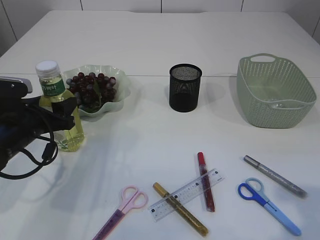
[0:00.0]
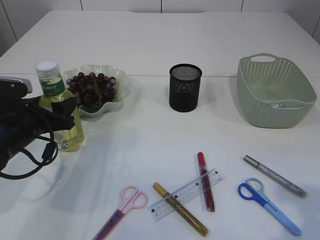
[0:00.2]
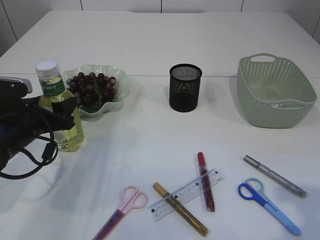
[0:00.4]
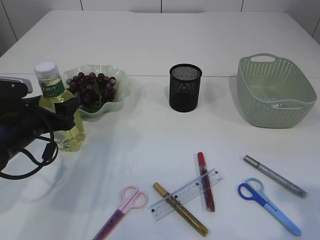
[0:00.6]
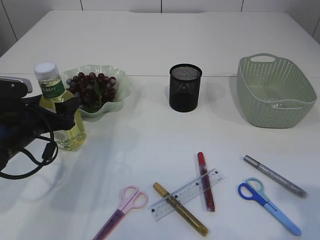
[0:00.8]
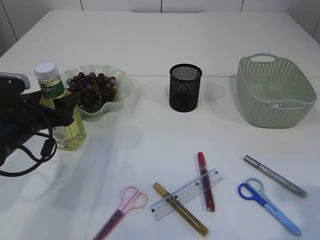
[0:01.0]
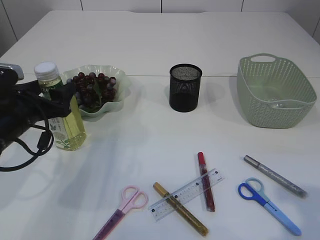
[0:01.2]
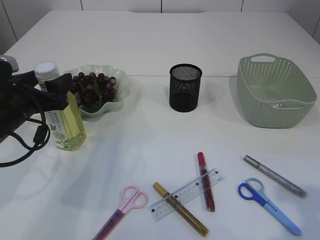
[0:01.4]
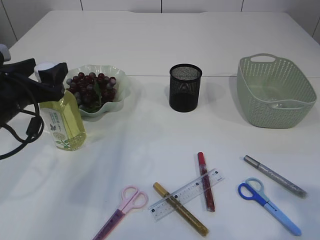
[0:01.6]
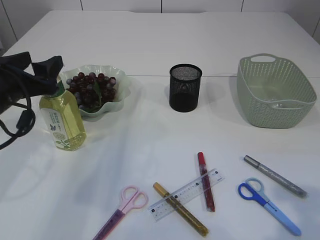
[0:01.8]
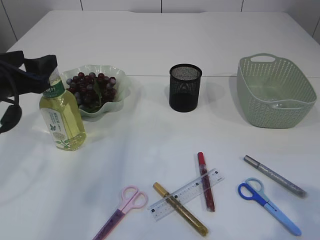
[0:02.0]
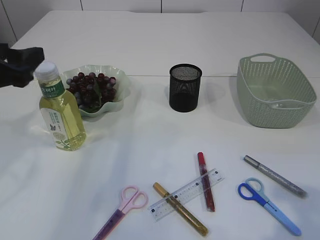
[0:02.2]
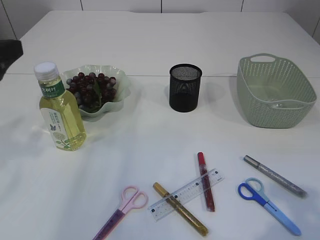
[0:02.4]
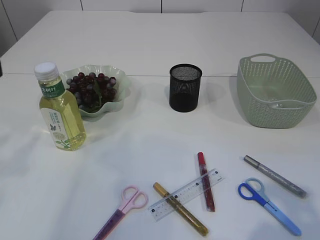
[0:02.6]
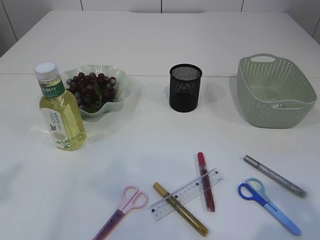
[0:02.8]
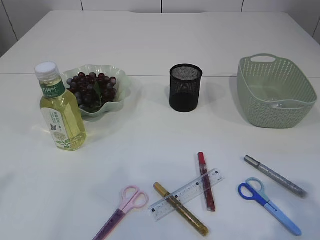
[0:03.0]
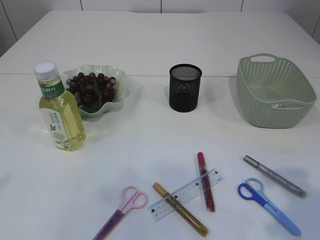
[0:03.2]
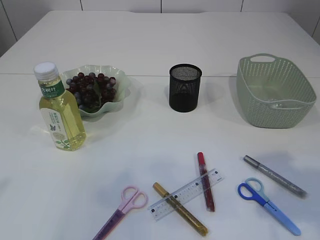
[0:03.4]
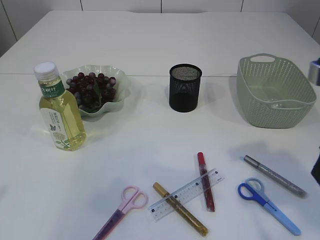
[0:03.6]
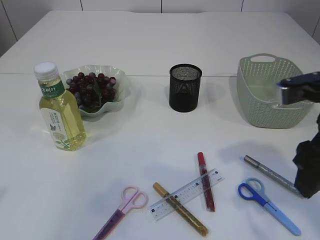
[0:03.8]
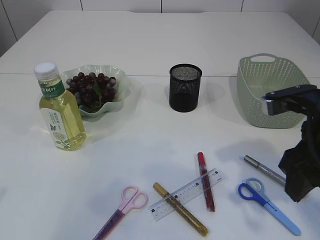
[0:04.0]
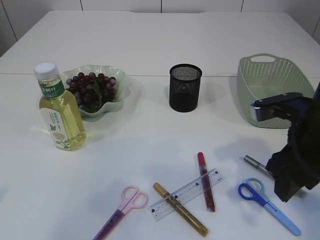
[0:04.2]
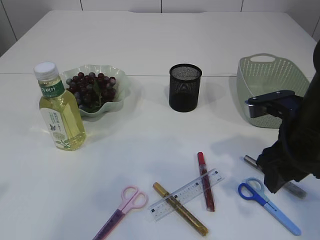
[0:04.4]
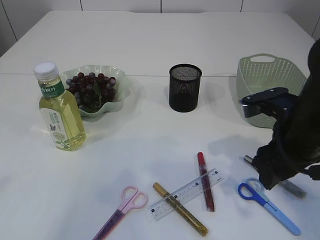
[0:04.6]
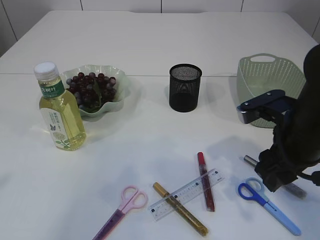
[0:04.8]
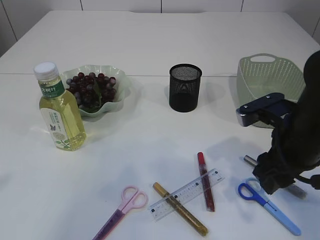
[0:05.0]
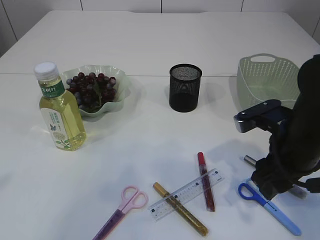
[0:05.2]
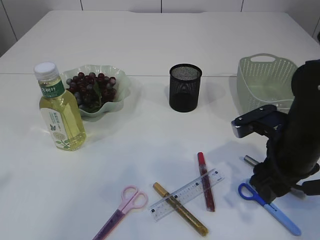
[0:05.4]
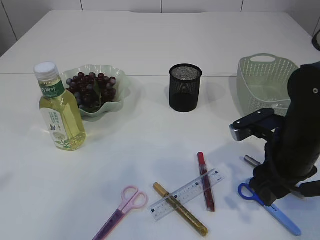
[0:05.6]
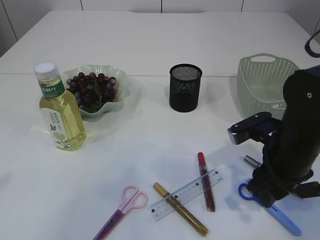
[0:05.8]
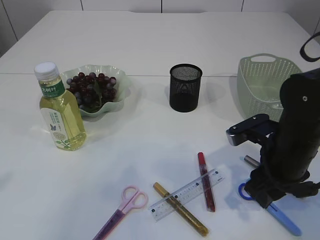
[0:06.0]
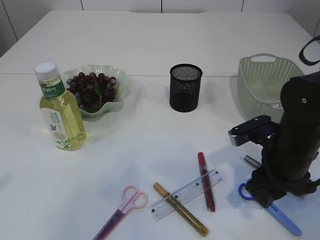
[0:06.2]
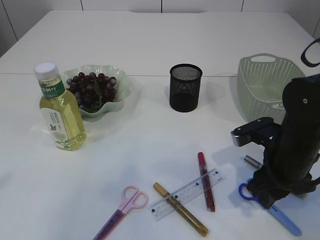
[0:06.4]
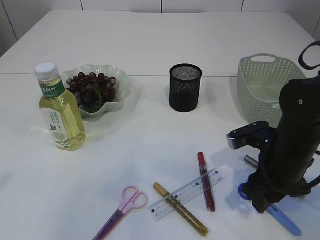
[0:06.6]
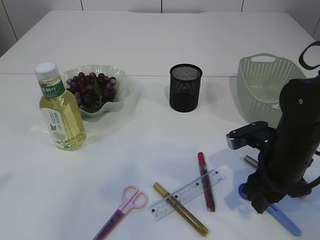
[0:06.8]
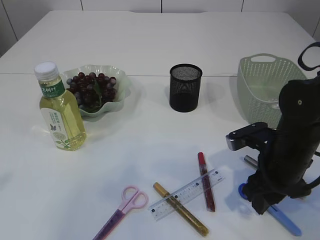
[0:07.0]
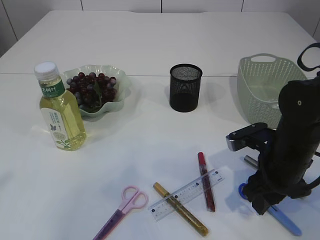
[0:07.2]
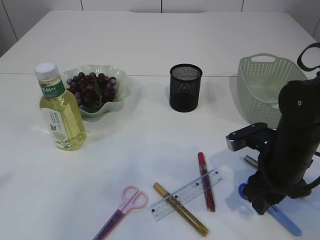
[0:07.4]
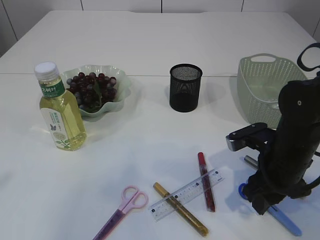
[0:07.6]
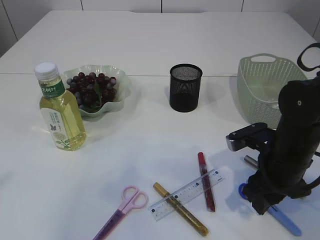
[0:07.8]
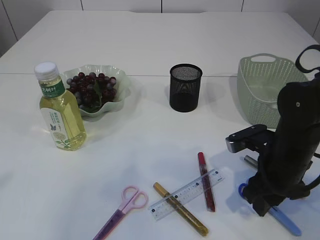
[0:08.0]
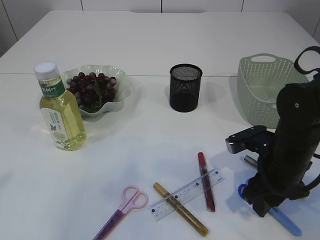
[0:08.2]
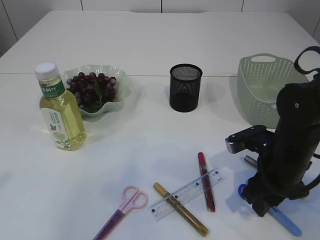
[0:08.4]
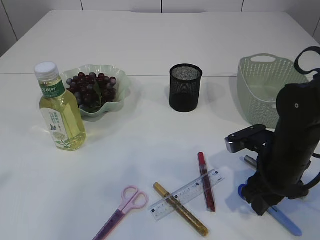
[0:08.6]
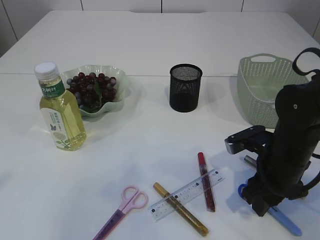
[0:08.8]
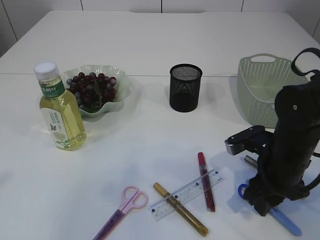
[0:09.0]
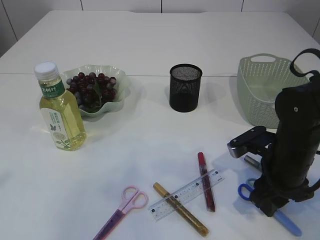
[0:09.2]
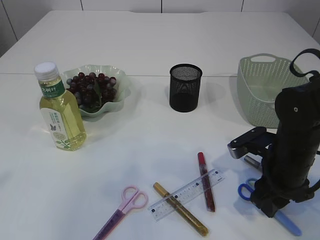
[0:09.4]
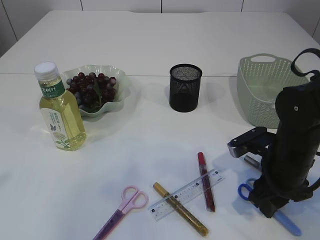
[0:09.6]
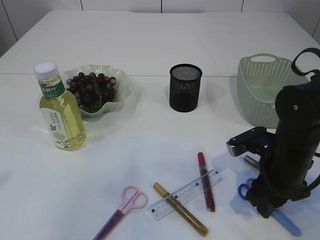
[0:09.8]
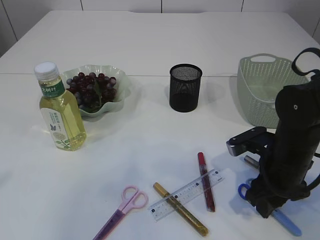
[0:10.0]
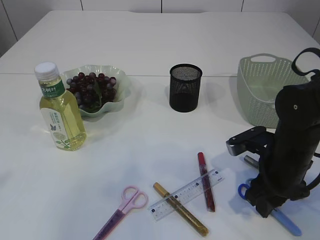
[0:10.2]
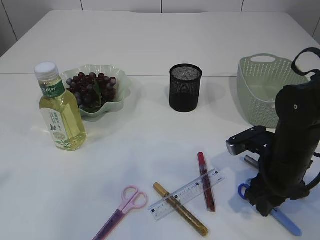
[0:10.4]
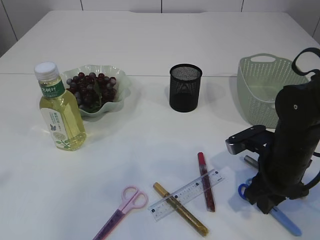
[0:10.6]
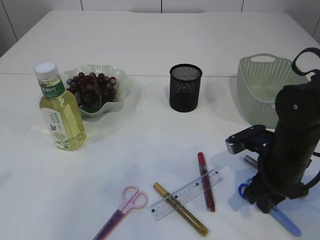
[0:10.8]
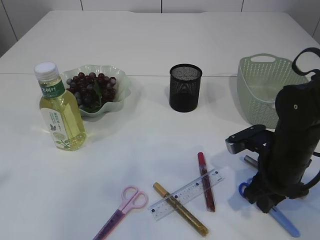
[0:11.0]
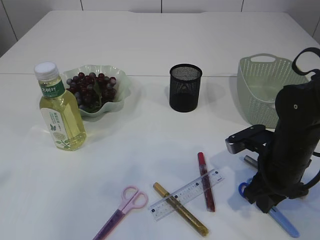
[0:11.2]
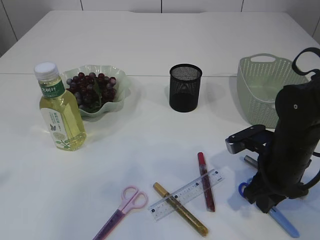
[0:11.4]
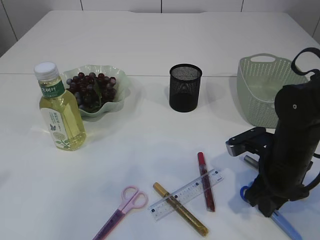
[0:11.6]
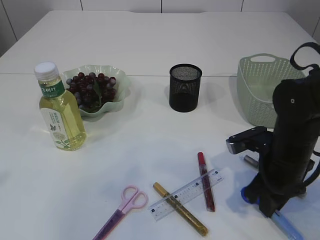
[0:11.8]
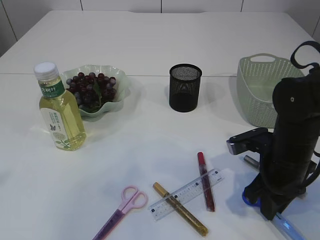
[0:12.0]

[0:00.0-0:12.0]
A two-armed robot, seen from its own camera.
Step, 0:00.0 to 0:02.2: Place the bottle.
0:00.0 to 0:01.6: The left gripper shifts roughly 5 cm upward.
0:01.6 to 0:03.0: The left gripper goes approximately 25 cm backward and upward.
0:03.0 to 0:04.4: The right gripper shifts about 15 cm forward and downward.
0:04.4 to 0:06.0: The right gripper heads downward, covering roughly 5 cm.
0:06.0 to 0:07.6: The grippers move only a little.
0:07.6 to 0:09.0: Neither gripper changes place.
0:09.0 to 0:10.4: Both grippers stay about where they are.
0:10.4 to 0:12.0: The right gripper closes its fingers.

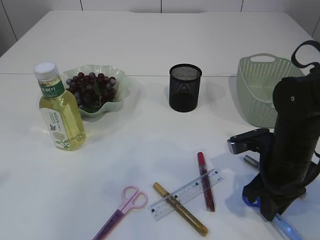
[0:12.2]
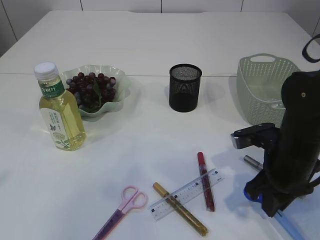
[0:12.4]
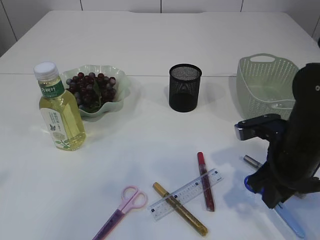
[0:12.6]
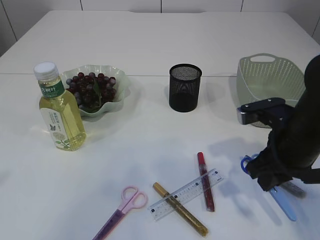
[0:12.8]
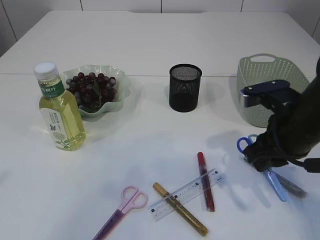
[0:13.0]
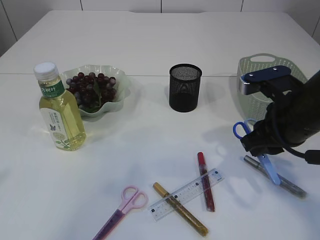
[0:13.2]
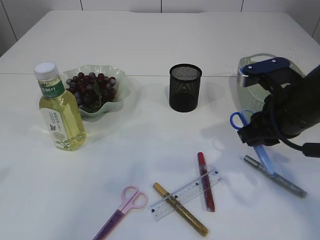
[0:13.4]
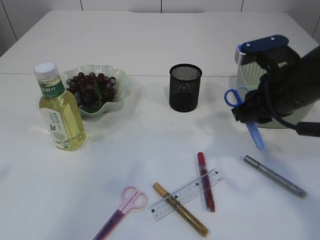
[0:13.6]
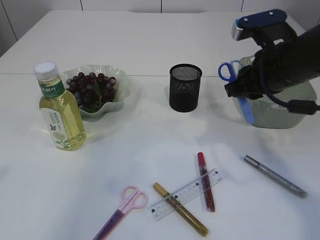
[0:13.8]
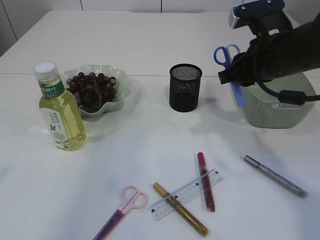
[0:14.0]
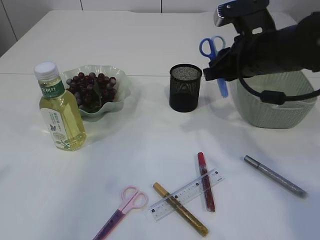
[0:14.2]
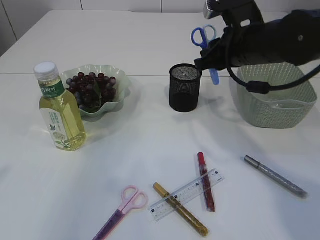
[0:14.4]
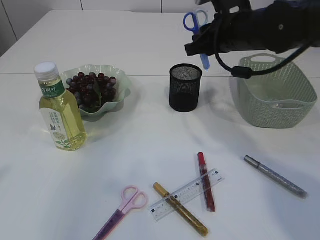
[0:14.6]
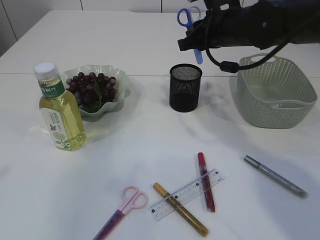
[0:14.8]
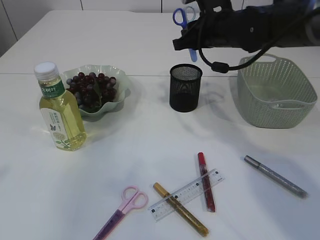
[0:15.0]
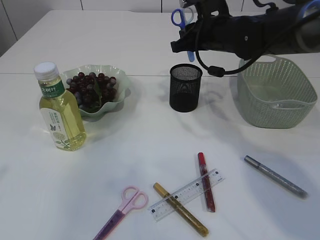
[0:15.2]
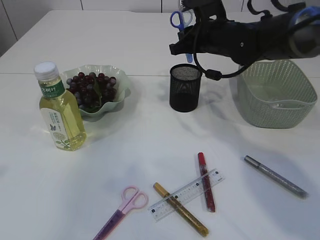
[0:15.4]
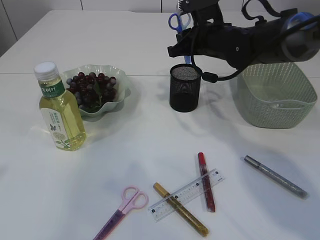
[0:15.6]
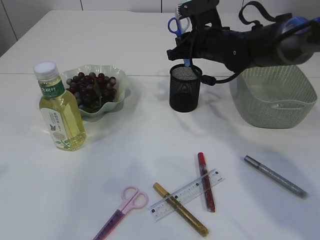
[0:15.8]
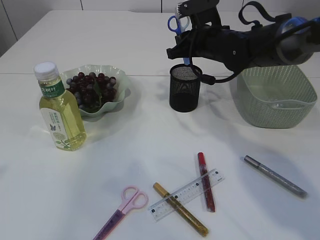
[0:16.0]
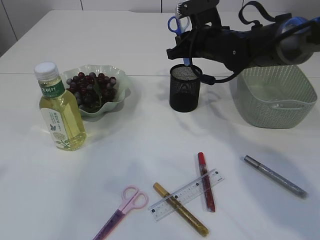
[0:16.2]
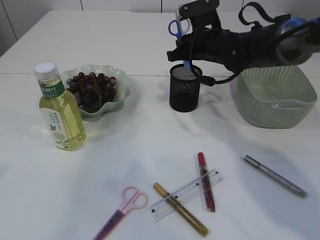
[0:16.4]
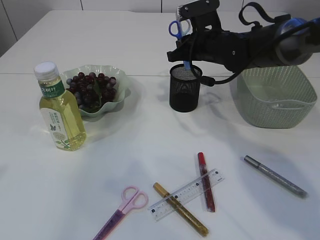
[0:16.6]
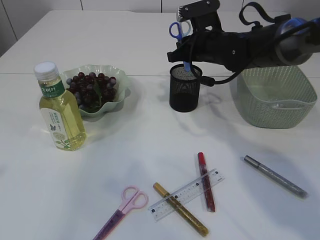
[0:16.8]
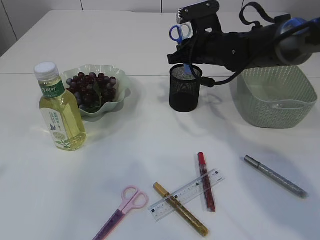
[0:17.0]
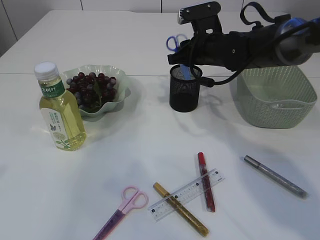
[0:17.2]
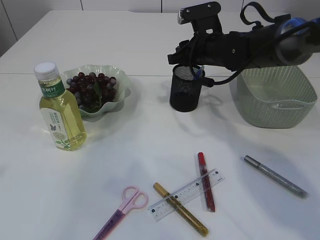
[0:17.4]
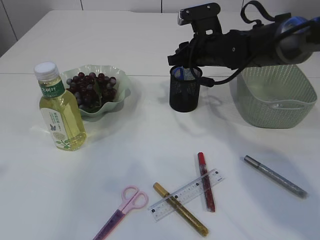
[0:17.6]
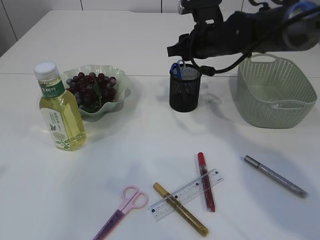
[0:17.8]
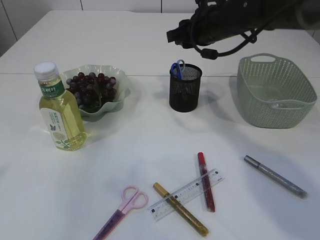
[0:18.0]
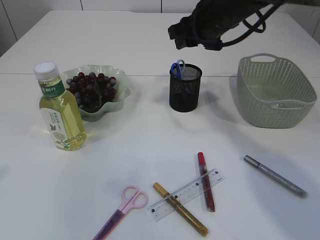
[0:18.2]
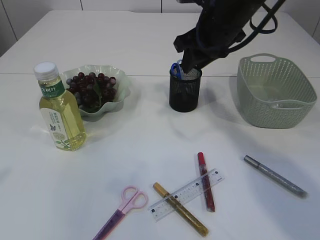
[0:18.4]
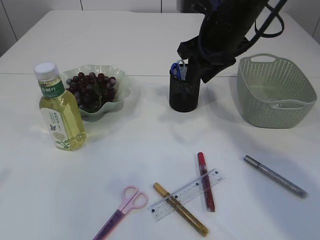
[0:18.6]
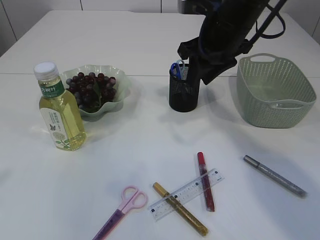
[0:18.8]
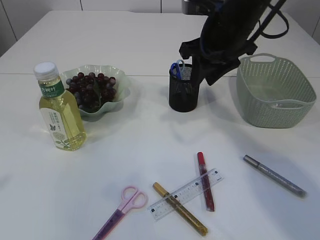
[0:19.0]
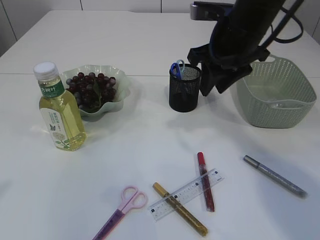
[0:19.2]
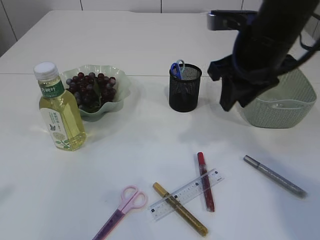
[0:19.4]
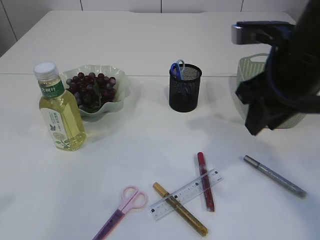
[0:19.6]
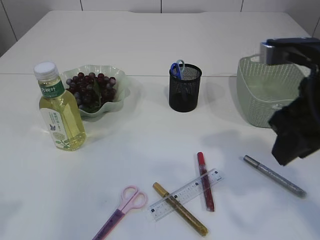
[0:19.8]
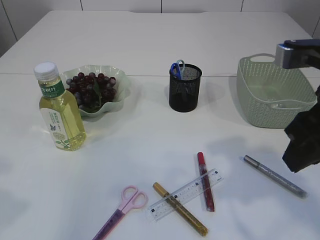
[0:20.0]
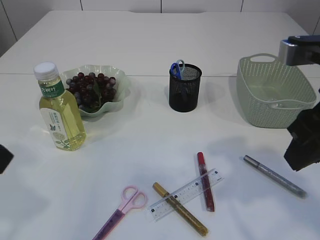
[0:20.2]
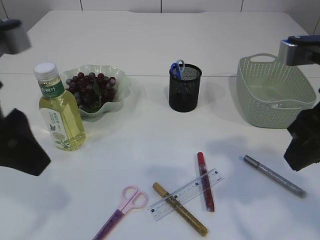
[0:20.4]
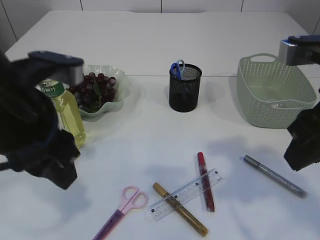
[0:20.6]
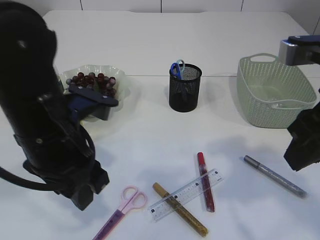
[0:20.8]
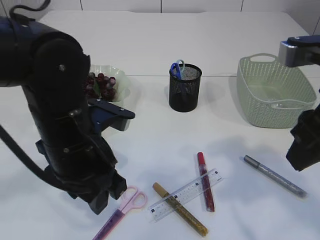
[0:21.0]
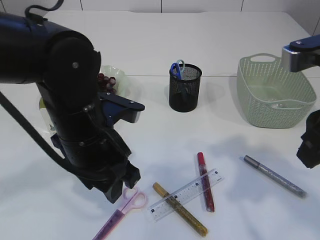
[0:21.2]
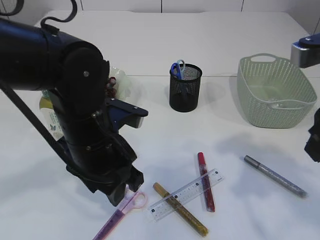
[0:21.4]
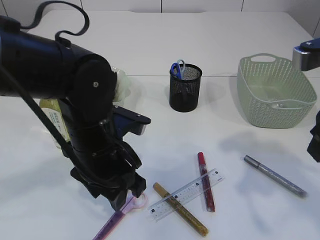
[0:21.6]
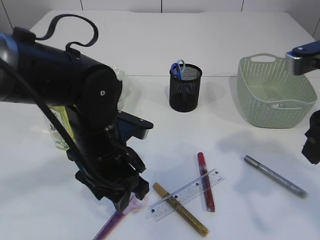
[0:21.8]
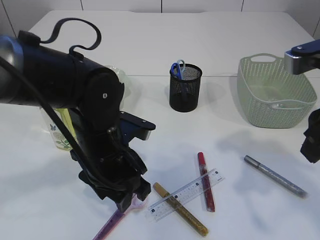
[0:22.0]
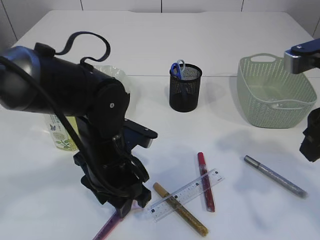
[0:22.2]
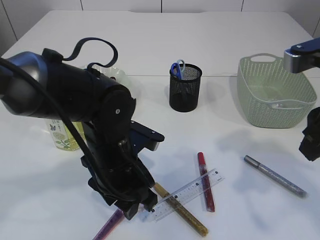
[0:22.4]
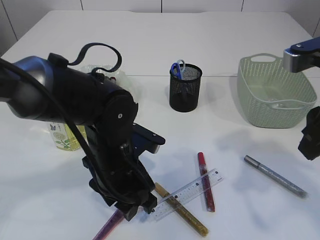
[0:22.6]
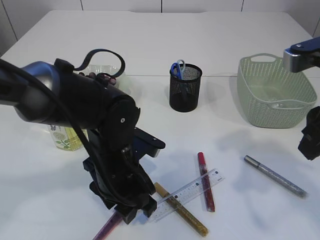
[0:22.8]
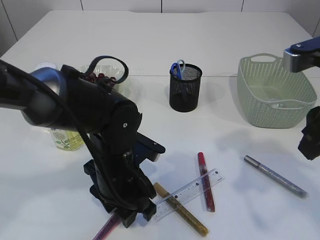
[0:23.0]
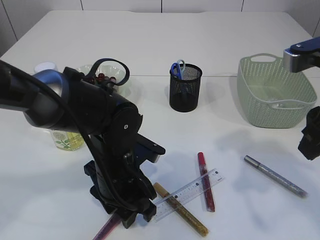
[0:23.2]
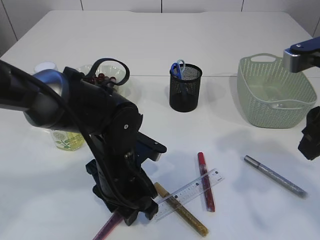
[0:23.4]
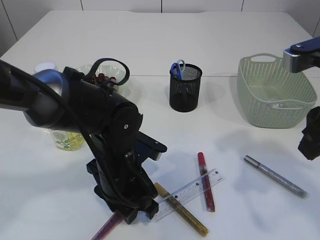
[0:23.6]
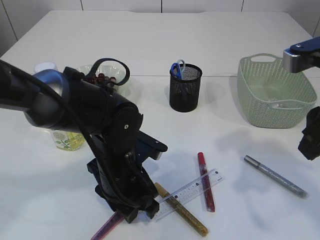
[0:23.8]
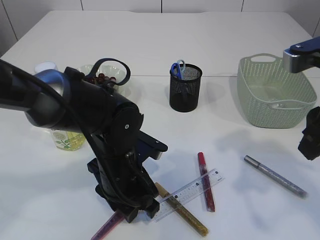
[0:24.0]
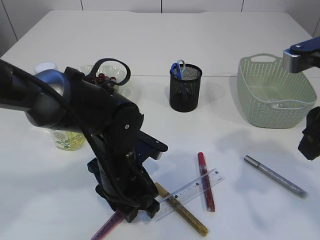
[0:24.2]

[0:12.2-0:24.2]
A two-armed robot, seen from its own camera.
Step, 0:13.4 to 0:18.0: Place the blue scissors into the pen holder.
0:12.2 to 0:13.8: The right gripper goes some 15 cm upward.
0:13.8 to 0:15.2: The right gripper is displaced forward and to the left by some 15 cm.
0:15.2 to 0:16.6: The grippers stay close to where they were, moving slightly.
0:16.6 to 0:18.2: The right gripper goes approximately 5 cm upward.
0:18.2 to 0:19.8: The right gripper shifts some 20 cm backward.
0:19.8 to 0:21.2: The left gripper moves to the right, forward and downward, about 25 cm.
0:21.2 to 0:22.6: The left gripper is displaced downward by some 5 cm.
0:22.6 to 0:24.2: The grippers make only small movements.
